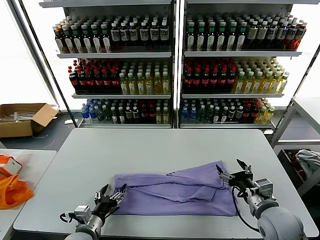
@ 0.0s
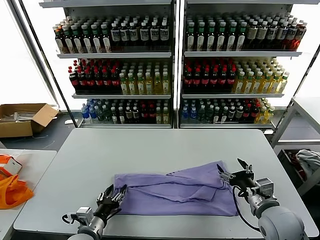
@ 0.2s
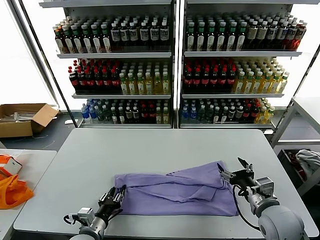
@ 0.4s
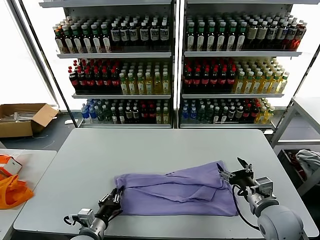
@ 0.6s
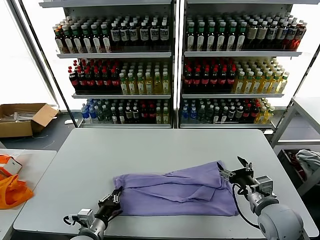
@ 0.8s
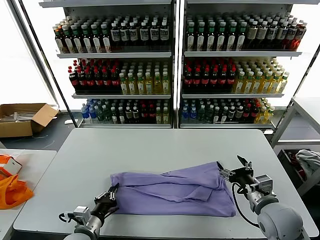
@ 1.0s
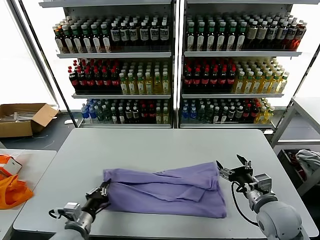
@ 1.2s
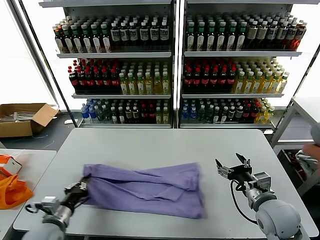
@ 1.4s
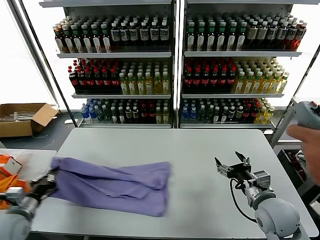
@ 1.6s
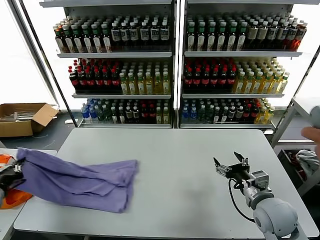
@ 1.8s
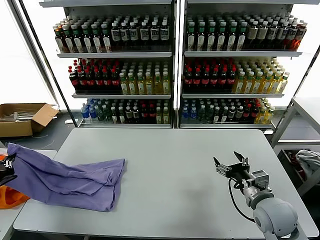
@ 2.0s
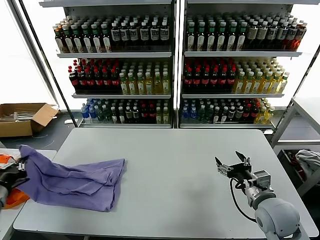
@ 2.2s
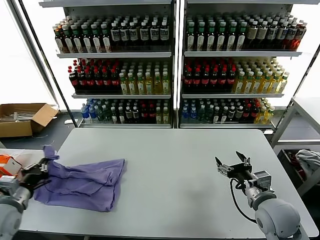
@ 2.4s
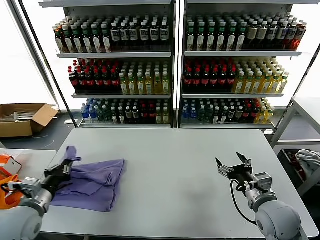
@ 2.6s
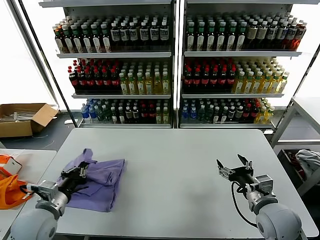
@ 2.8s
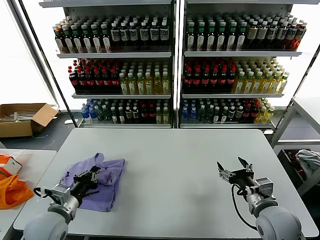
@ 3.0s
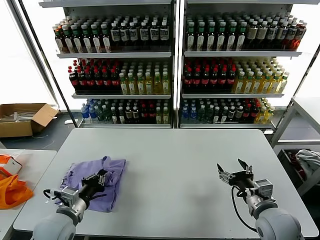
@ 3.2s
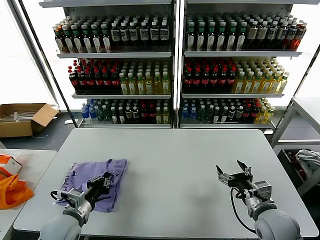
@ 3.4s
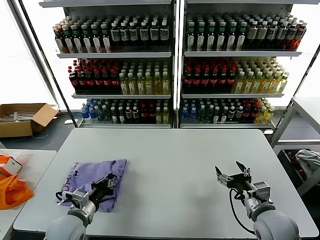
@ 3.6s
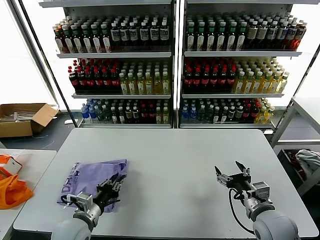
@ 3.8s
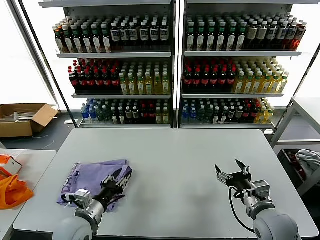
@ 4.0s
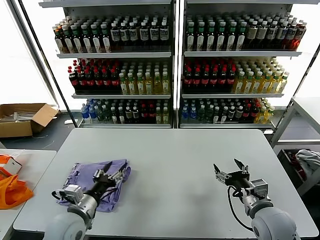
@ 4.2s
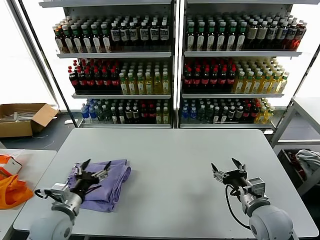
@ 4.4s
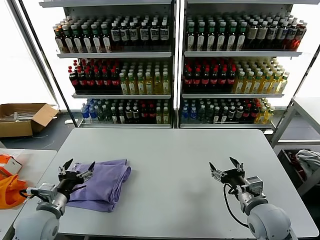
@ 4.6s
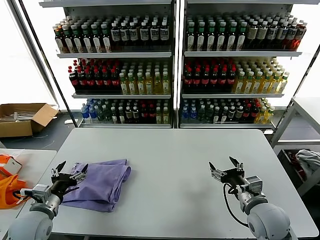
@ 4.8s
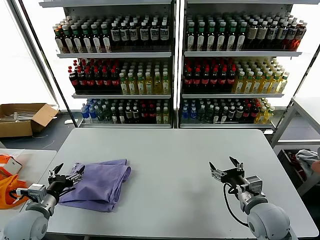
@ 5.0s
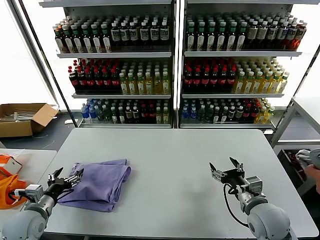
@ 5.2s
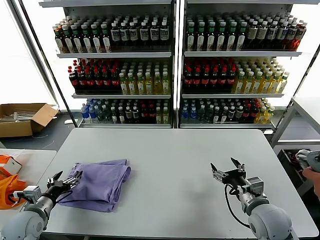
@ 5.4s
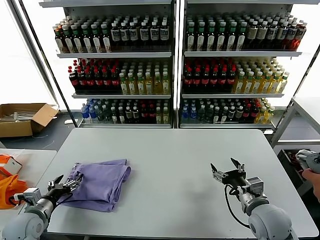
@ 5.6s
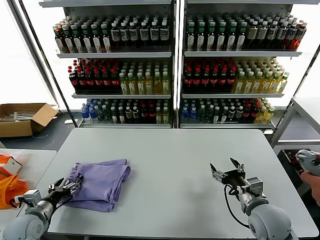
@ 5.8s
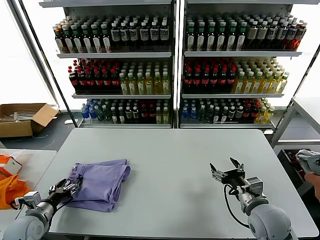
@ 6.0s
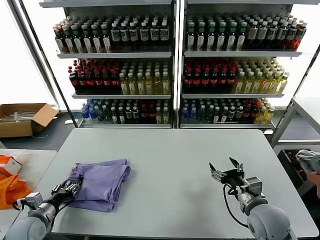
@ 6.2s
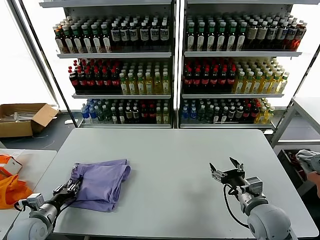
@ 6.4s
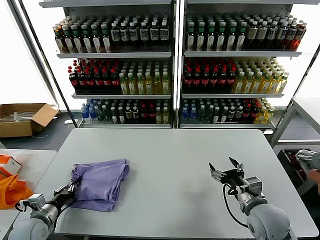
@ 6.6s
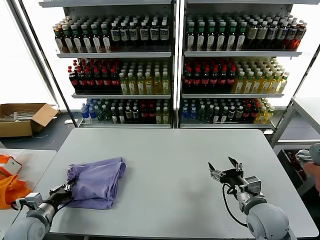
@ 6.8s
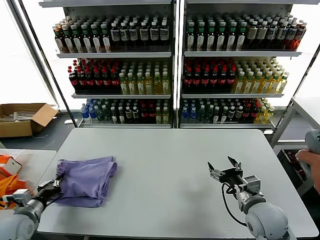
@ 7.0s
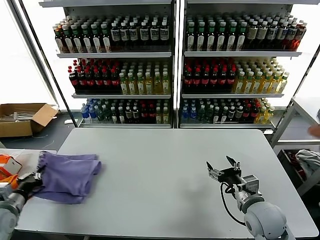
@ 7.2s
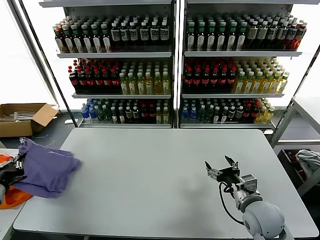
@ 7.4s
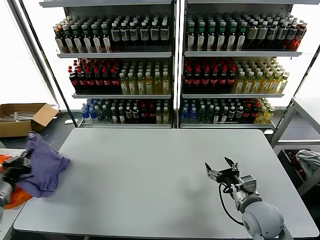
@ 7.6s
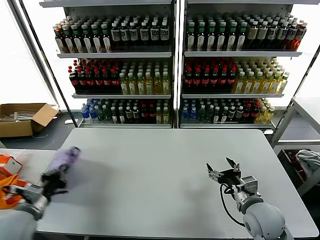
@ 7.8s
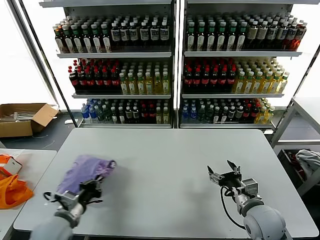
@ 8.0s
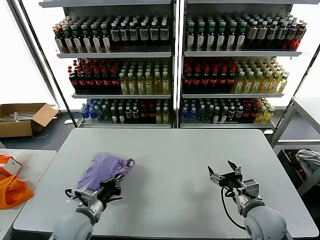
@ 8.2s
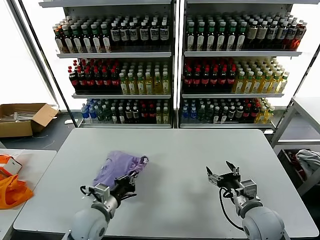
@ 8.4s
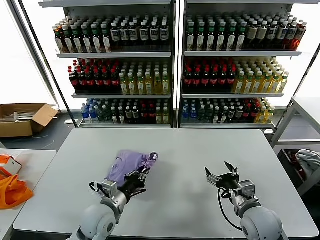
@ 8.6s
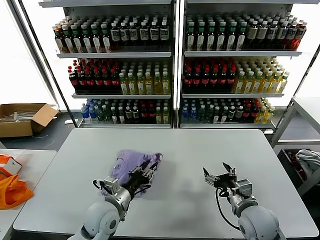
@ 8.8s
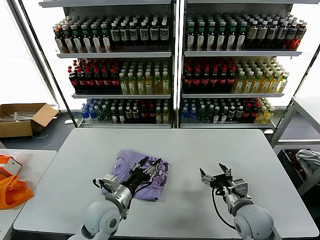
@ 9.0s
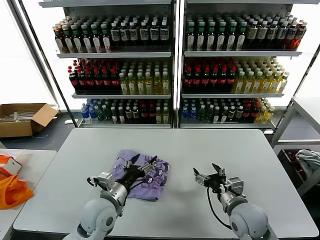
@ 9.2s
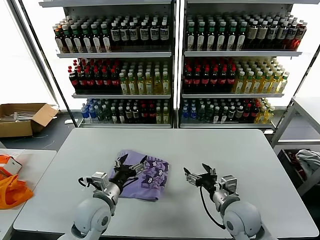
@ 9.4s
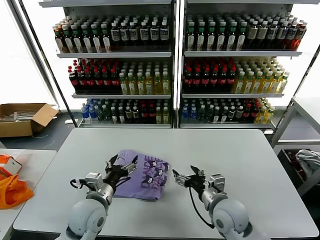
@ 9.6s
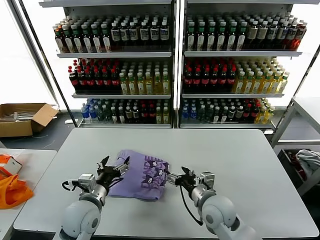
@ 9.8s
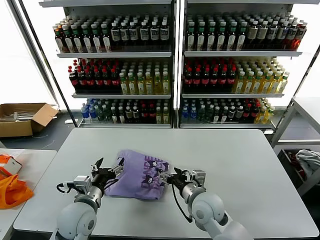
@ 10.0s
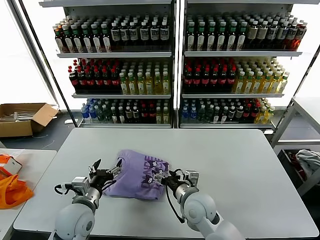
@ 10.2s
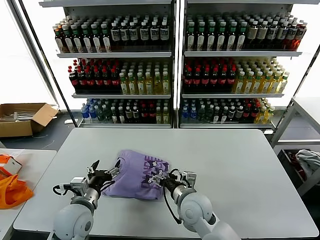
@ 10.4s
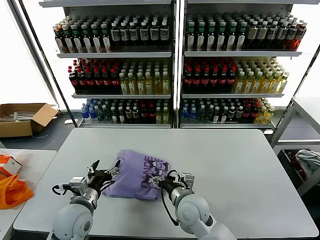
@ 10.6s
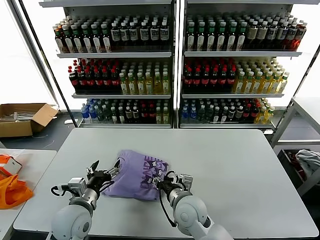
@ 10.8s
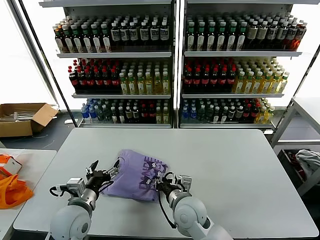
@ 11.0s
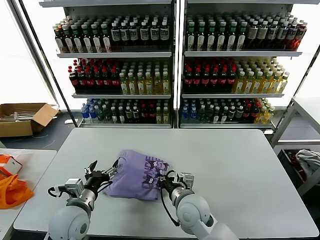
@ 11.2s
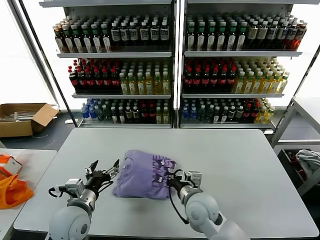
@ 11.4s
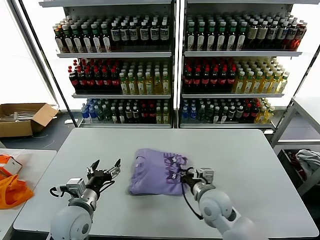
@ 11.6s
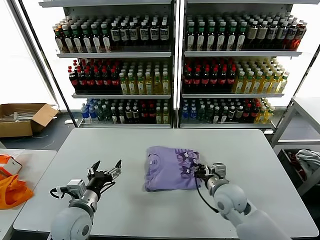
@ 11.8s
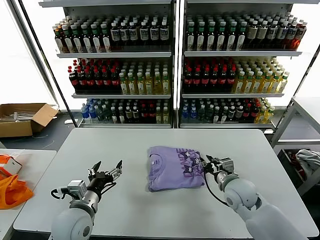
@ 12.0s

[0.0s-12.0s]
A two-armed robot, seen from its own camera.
Task of the whole recording: fold and organize the clothes.
Step, 0.8s to 3.8s: use the left gripper to drag the left edge of the fabric to the left and folds it over the right edge.
Step, 4.0s to 8.6s: Flip the folded clothes over with left gripper.
Step, 8.8s to 11.8s: Drag the clothes to the center of the table.
0.0s to 1.6s: The left gripper goes some 15 cm to the left, and closes its fingers.
1.6s to 3.0s: The left gripper is displaced to the right by approximately 10 cm.
3.0s to 4.4s: The left gripper opens.
4.4s to 6.0s: The left gripper heads to the left and downward, covering some 15 cm.
6.0s to 7.6s: The left gripper heads upward and to the left, covering roughly 15 cm, and closes its fingers.
7.6s to 9.0s: The left gripper heads to the right, covering some 30 cm, and opens.
9.0s to 10.4s: The left gripper moves to the left, some 5 cm, and opens its fingers. Meanwhile the right gripper moves to the left, roughly 15 cm.
10.4s to 12.0s: The right gripper is displaced to the right by about 15 cm, and closes.

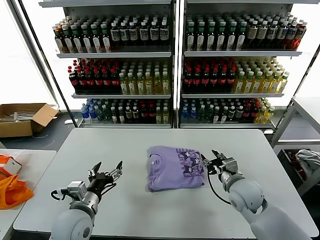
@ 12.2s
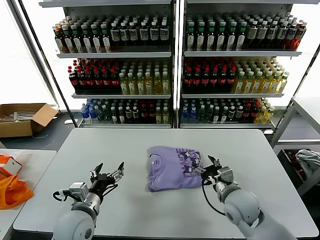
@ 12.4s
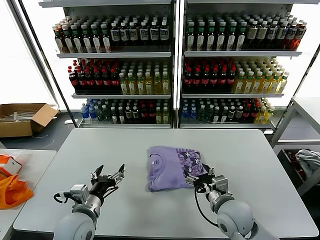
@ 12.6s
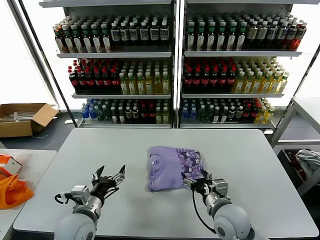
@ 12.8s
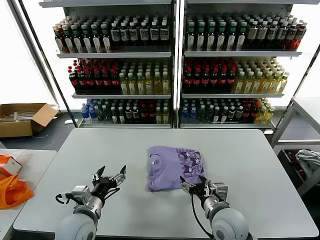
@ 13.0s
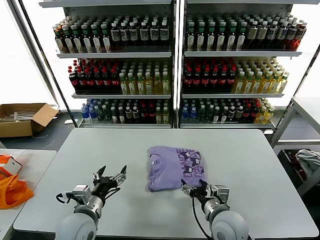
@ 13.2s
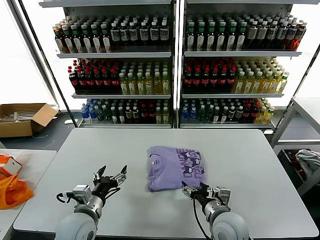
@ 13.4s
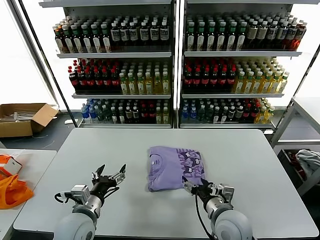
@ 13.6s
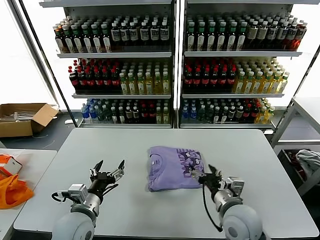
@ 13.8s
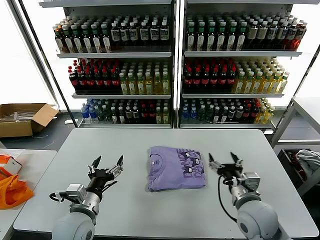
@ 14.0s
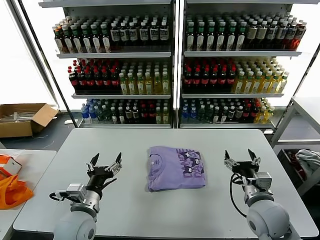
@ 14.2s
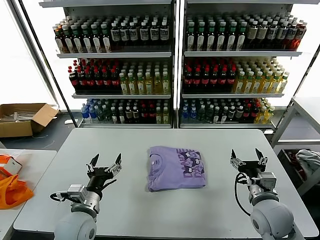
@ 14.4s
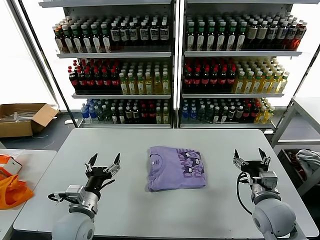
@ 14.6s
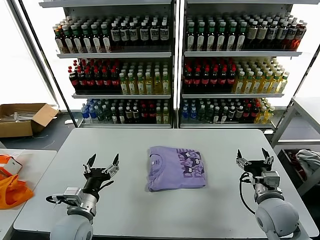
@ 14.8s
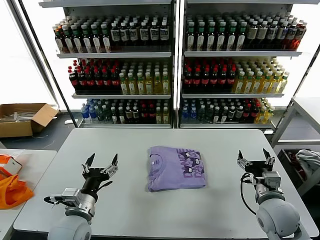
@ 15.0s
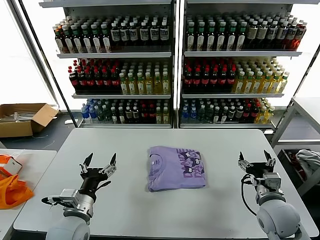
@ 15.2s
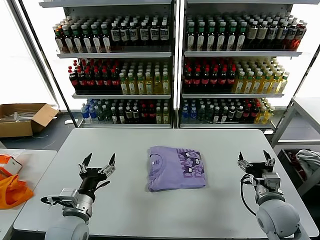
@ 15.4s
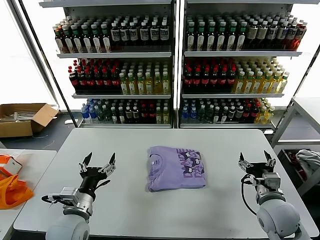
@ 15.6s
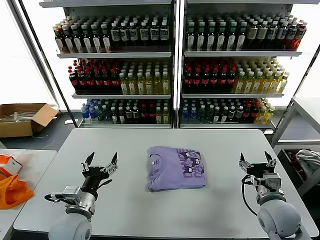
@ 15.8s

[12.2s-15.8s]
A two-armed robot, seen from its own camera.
Task of the whole recording: fold and organize the clothes.
12.2s to 14.0s: The right gripper shifts some 10 cm backward, and opens up.
14.0s to 15.8s: The right gripper moves to the right, roughly 10 cm.
